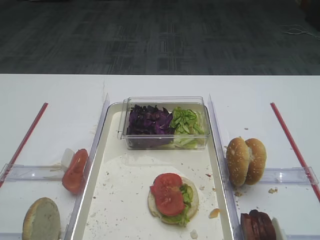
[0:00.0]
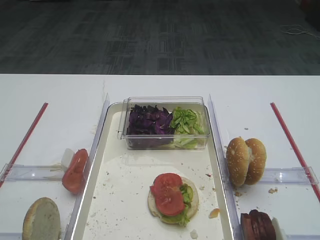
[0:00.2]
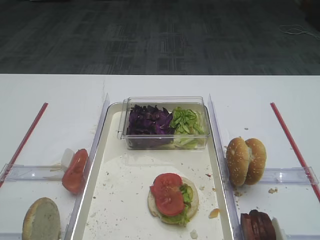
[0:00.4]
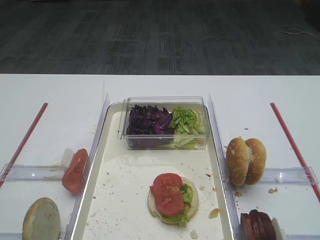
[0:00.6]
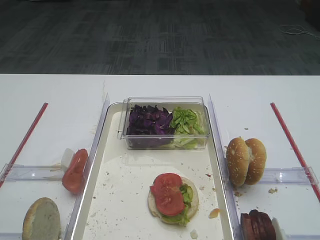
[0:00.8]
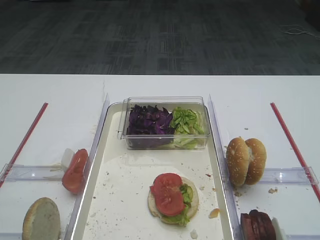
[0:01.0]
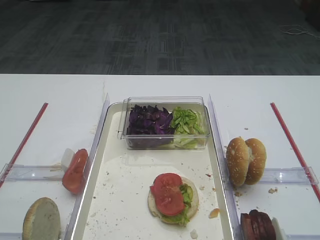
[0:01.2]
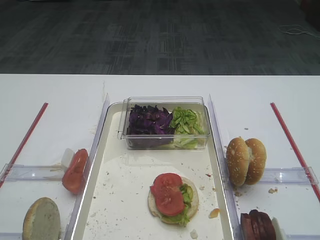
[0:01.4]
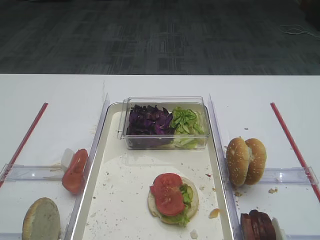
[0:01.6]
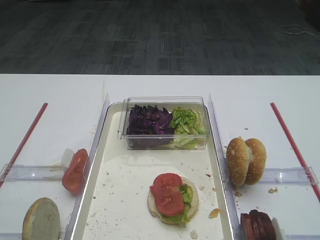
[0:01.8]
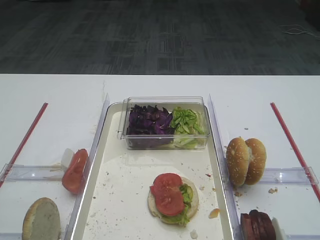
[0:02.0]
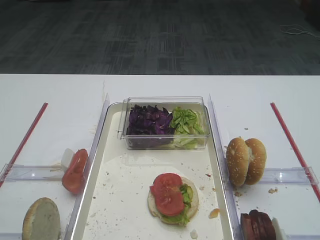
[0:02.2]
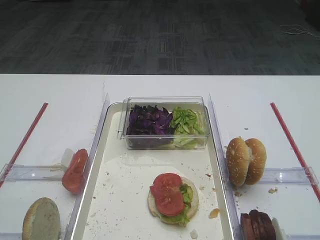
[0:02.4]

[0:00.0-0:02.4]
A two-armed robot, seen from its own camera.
0:00.0 to 0:02.4: Both grippers stay put.

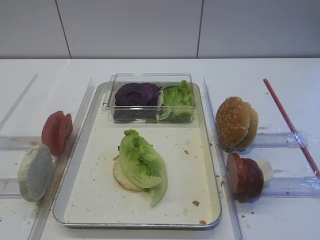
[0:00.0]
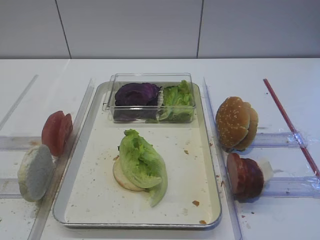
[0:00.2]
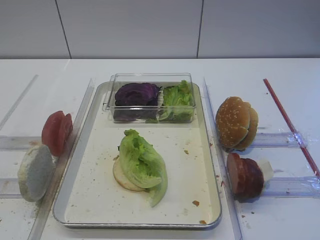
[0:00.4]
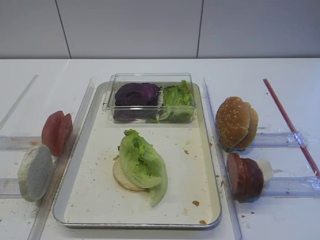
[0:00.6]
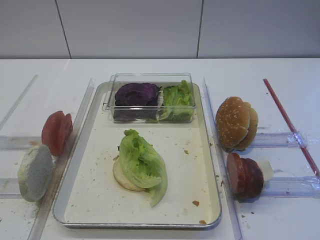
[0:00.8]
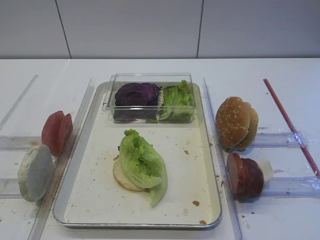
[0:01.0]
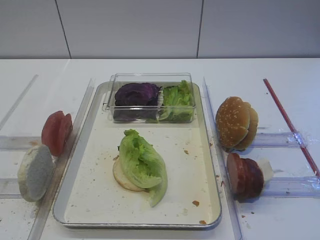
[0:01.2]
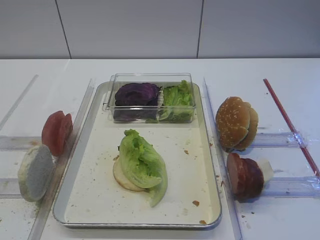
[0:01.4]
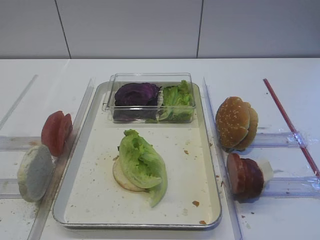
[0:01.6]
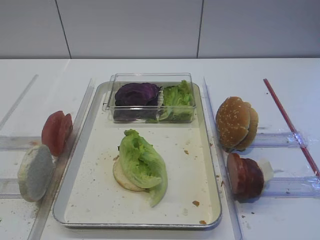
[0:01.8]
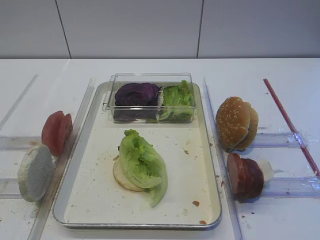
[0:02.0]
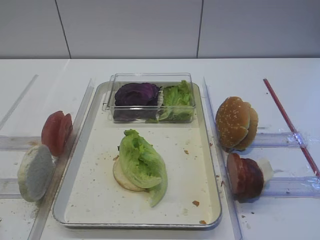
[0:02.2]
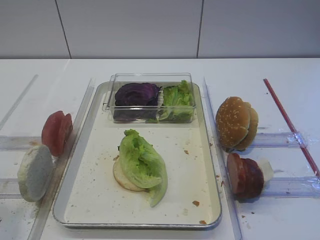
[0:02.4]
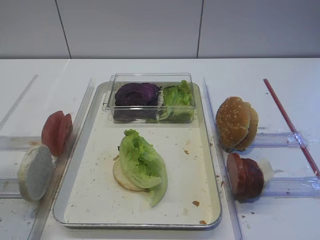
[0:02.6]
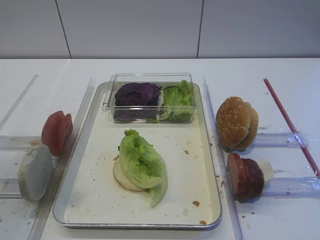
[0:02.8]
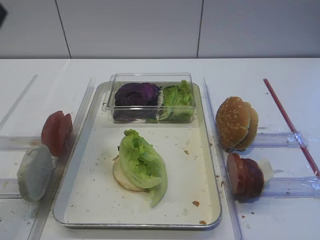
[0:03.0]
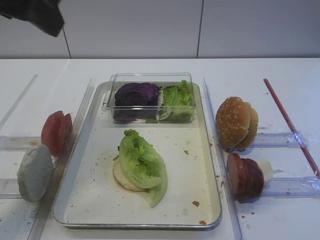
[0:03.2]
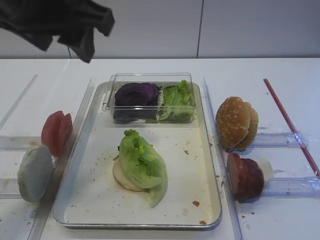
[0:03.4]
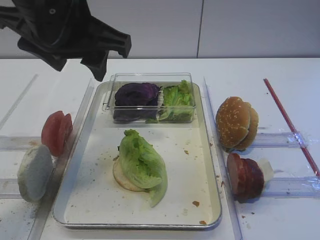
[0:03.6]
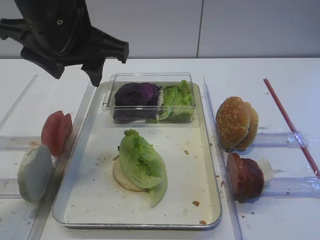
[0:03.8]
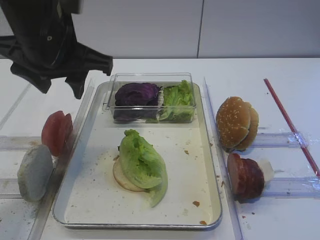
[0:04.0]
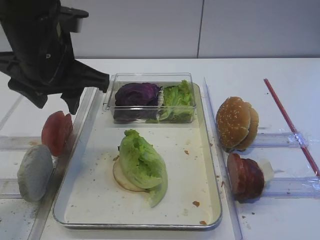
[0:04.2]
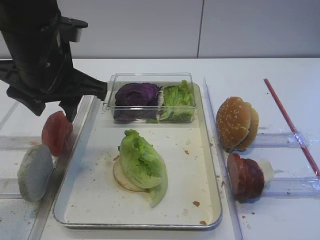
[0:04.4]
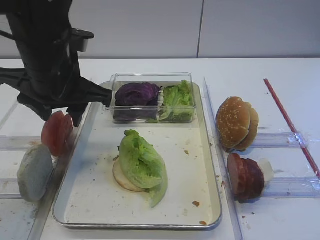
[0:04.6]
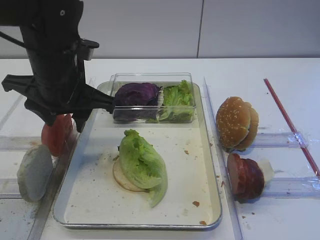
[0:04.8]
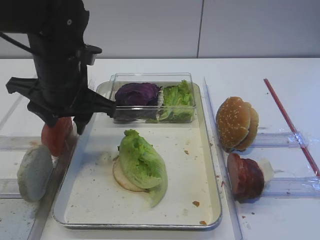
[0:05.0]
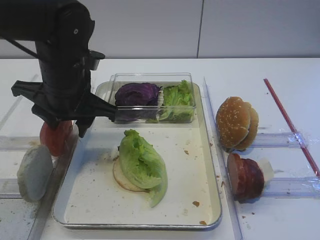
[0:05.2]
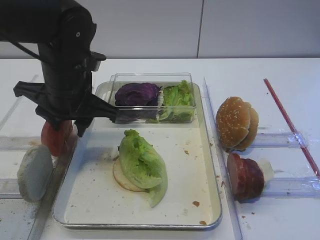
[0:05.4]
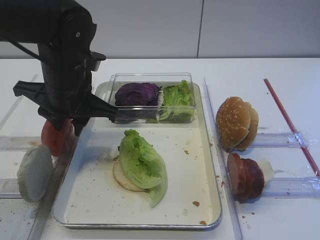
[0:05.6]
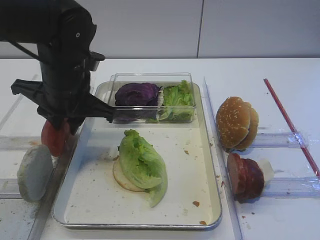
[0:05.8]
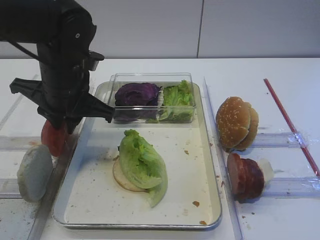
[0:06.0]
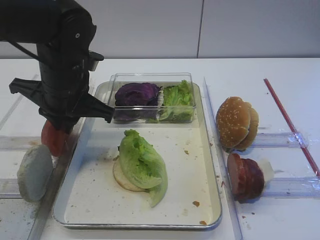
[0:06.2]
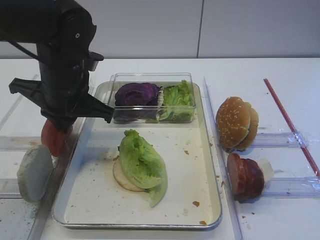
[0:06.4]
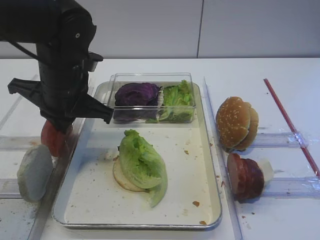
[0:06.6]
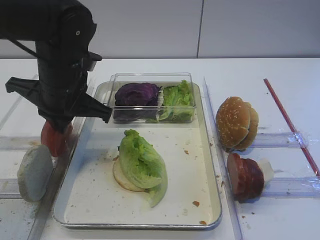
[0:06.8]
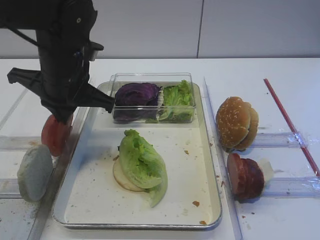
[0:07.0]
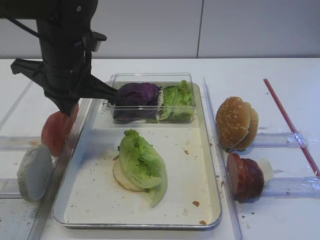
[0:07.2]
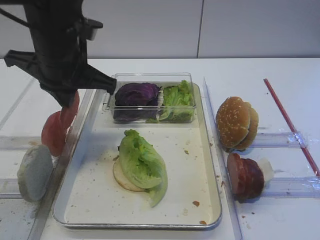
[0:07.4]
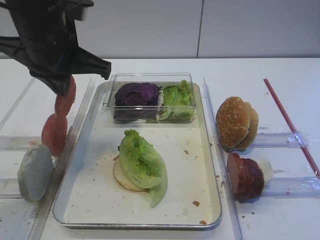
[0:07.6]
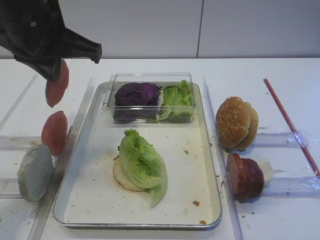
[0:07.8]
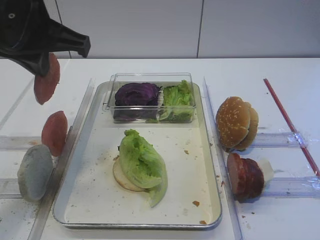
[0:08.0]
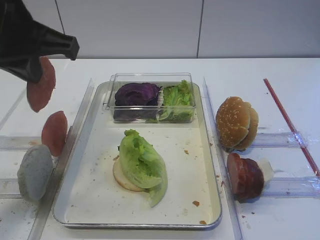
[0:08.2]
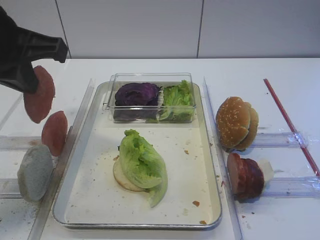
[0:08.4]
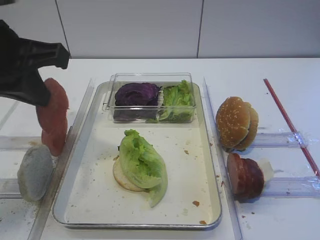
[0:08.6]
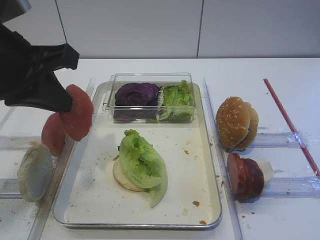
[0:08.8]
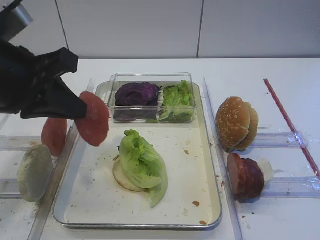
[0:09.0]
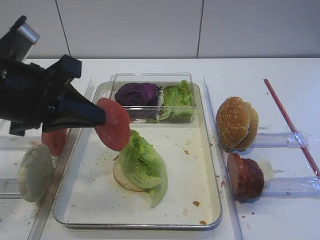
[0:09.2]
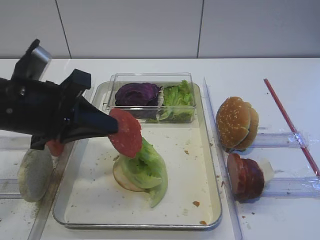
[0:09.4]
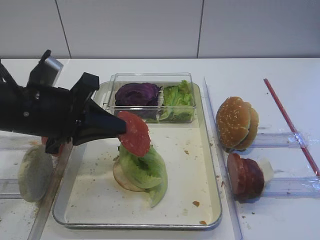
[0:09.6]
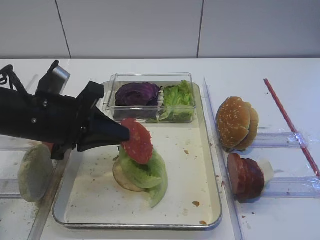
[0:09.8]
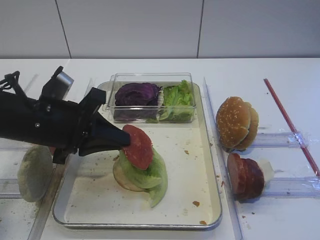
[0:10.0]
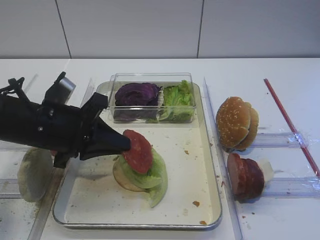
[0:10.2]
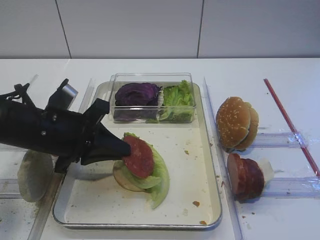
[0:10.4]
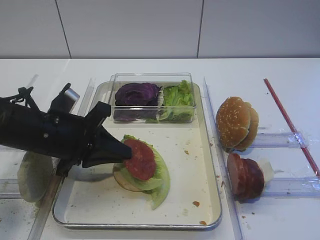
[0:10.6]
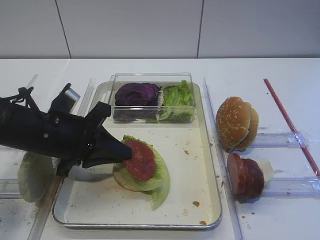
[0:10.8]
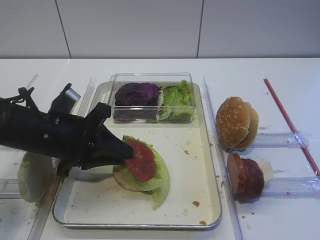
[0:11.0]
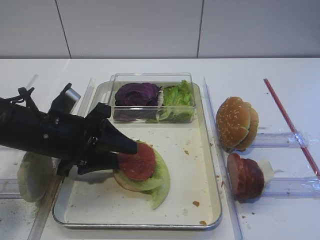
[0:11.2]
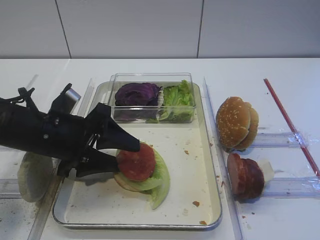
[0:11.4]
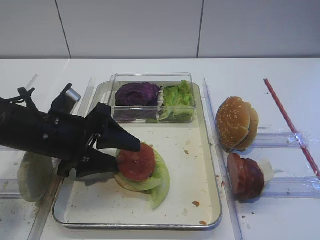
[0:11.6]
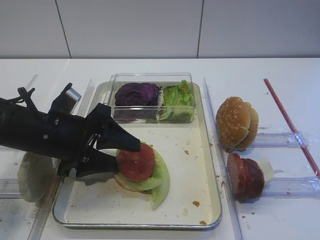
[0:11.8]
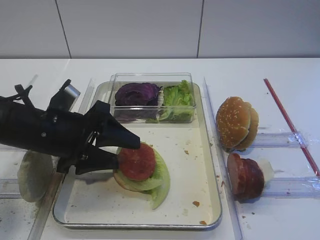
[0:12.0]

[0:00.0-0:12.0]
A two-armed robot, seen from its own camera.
Step, 0:00.0 to 0:07.8: Pick up the tomato slice with the left gripper.
0:01.6 to 0:03.0: The left gripper moves upward and forward, approximately 25 cm.
0:03.0 to 0:04.4: The left gripper goes approximately 20 cm downward, forward and to the right.
0:04.4 to 0:06.0: The left gripper moves downward, approximately 5 cm, and closes.
0:06.0 to 0:07.6: The left gripper goes about 5 cm upward, and closes up.
0:07.6 to 0:09.0: The left gripper travels backward by about 10 cm.
0:09.0 to 0:10.4: The left gripper is displaced downward by roughly 10 cm.
0:10.4 to 0:12.0: The left gripper opens up.

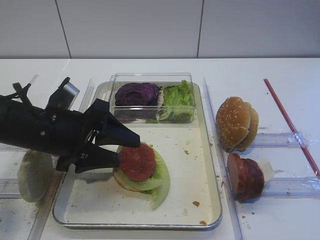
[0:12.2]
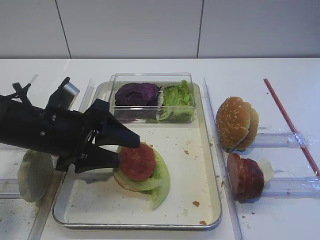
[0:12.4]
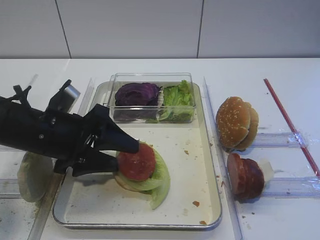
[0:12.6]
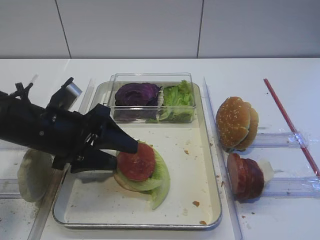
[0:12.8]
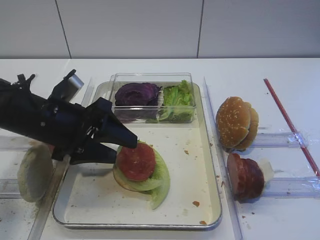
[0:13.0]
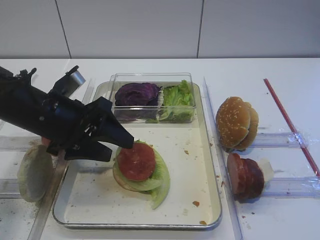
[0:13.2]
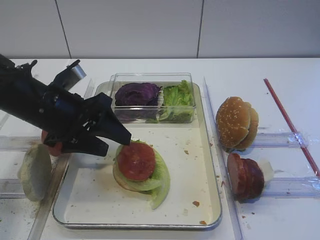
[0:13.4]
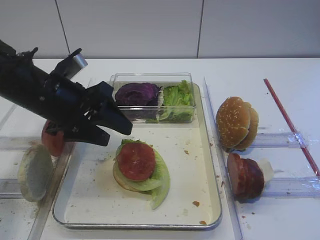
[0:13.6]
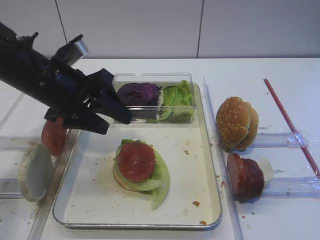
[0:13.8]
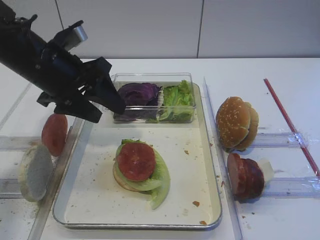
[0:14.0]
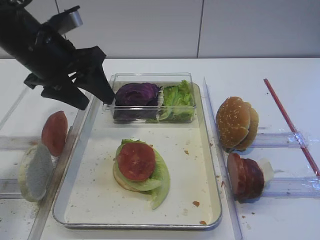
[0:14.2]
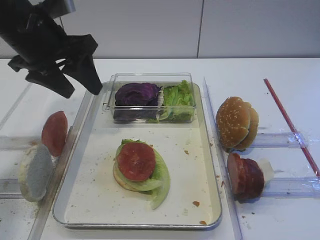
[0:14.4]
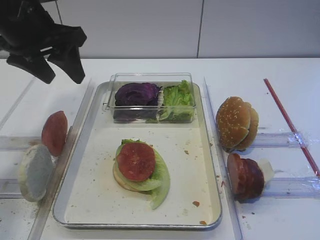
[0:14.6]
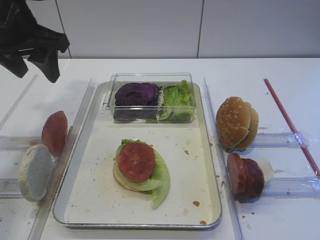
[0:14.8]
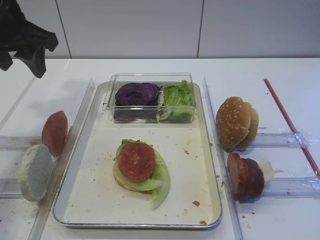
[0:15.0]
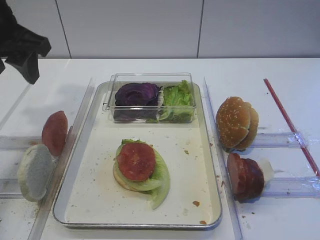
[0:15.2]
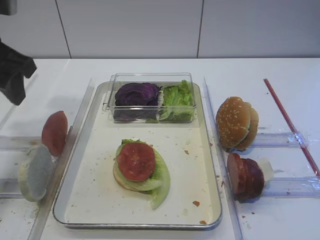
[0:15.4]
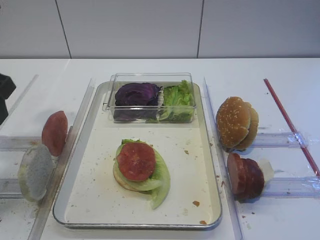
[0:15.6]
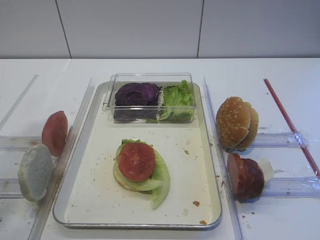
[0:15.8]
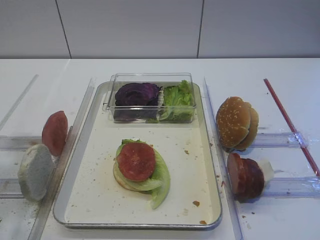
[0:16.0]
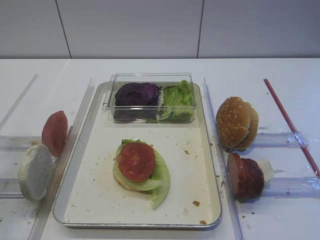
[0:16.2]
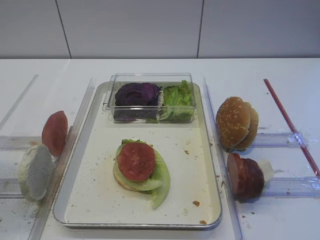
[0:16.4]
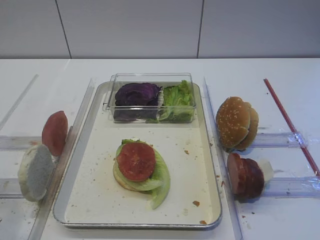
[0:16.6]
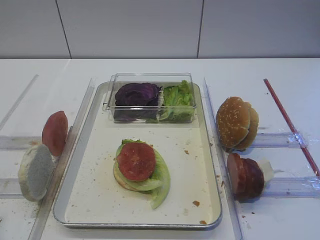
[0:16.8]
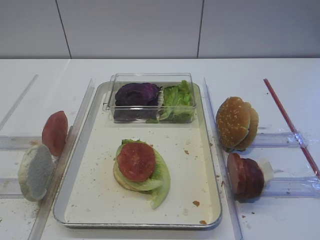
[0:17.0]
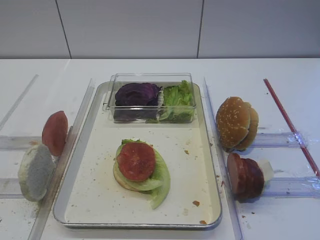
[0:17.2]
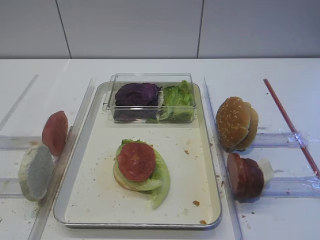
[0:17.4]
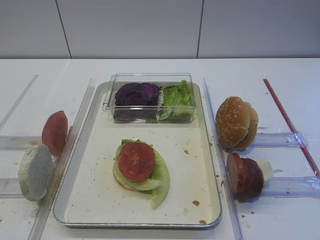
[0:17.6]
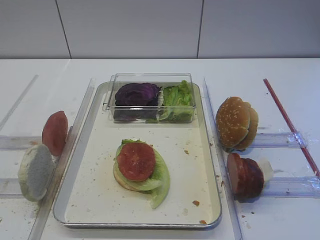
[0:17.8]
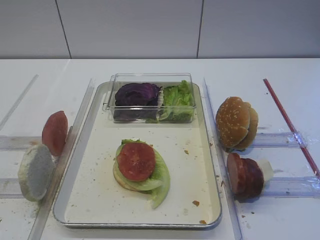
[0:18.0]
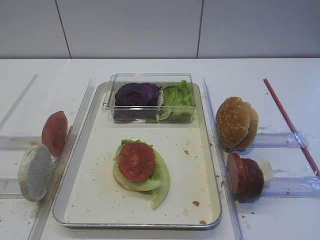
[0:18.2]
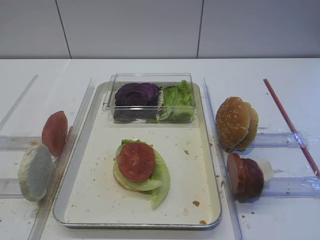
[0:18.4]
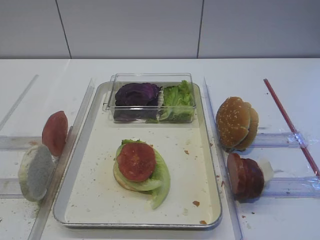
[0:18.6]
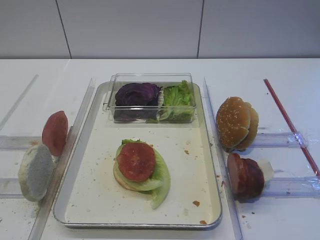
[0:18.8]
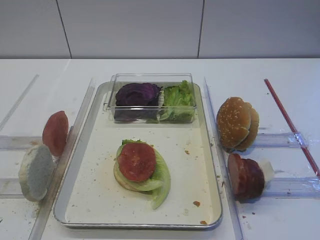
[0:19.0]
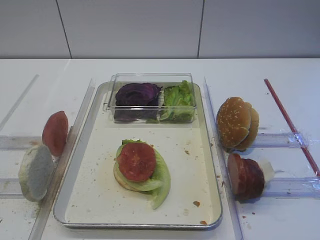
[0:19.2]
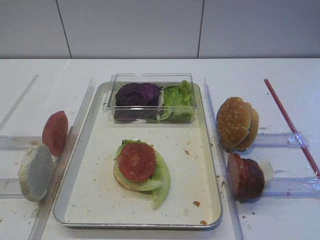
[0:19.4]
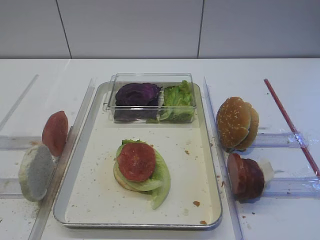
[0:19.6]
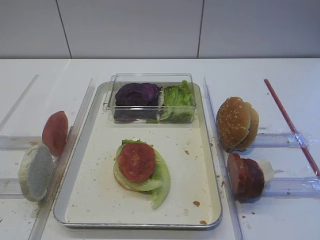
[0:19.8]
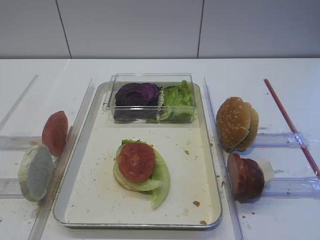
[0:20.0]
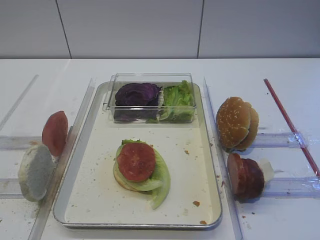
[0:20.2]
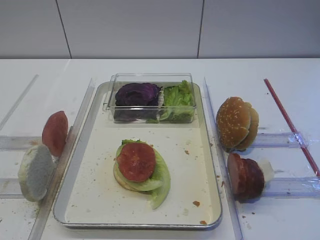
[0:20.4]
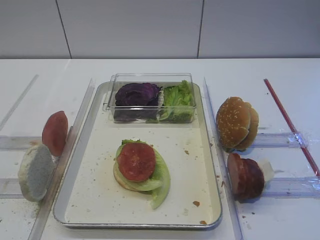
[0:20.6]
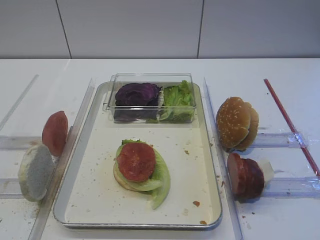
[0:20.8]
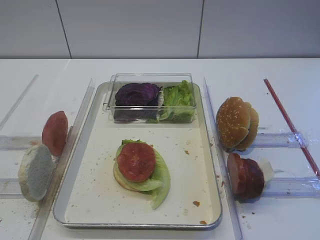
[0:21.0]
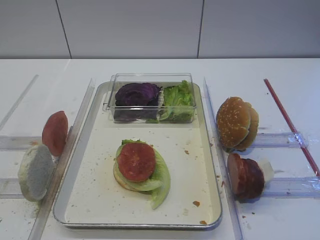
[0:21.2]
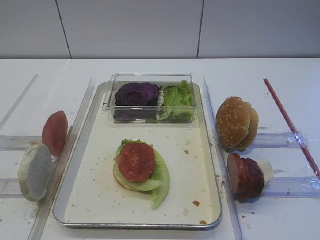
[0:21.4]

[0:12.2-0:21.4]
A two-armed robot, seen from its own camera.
0:12.2 to 0:13.8: The left gripper moves upward, roughly 5 cm.
0:13.8 to 0:15.2: The left gripper heads upward and to the left, covering about 15 cm.
0:15.2 to 0:16.8: The left gripper moves backward, some 30 cm.
0:19.8 to 0:21.4: The two grippers keep their place.
